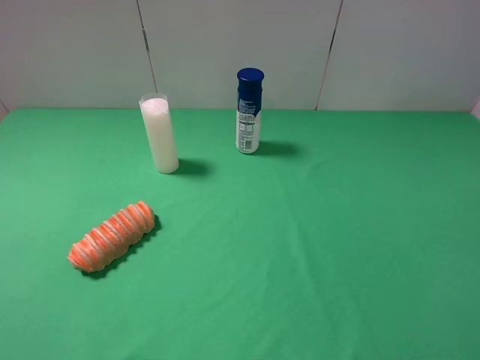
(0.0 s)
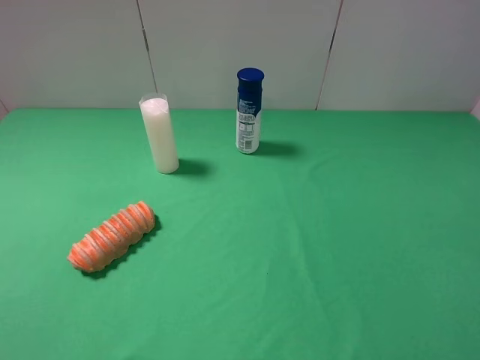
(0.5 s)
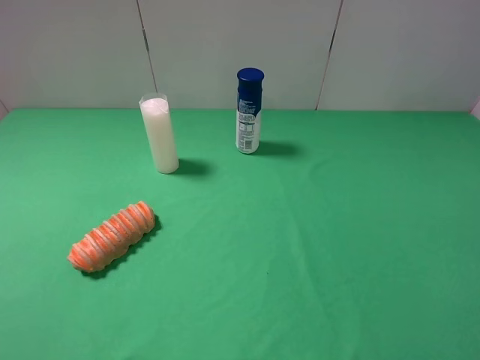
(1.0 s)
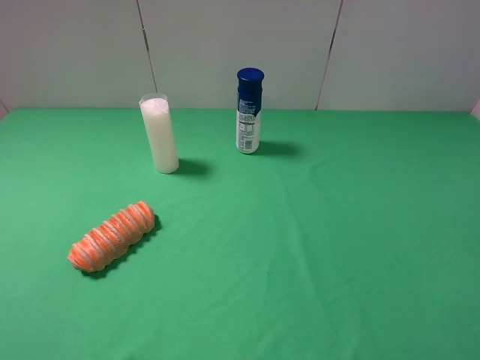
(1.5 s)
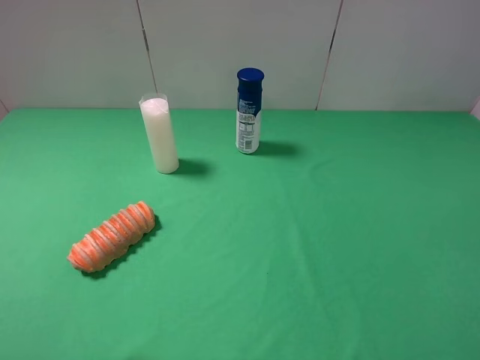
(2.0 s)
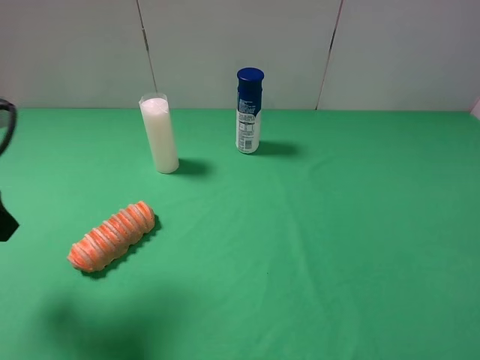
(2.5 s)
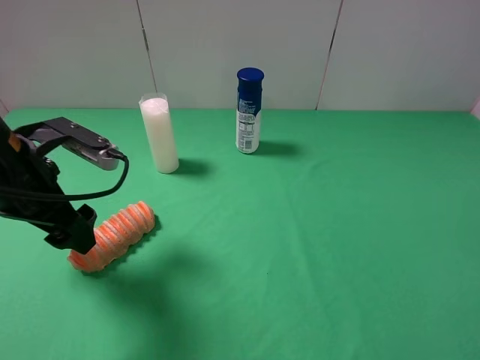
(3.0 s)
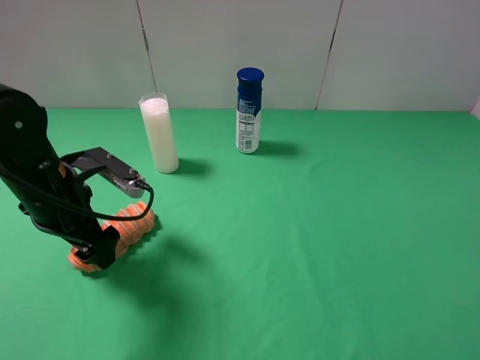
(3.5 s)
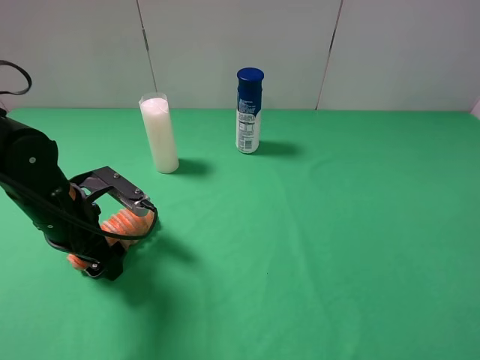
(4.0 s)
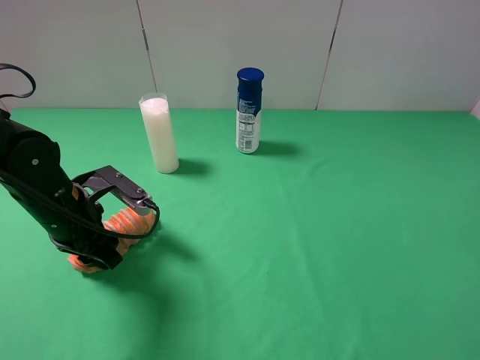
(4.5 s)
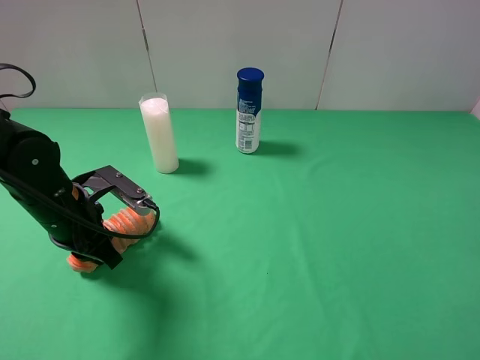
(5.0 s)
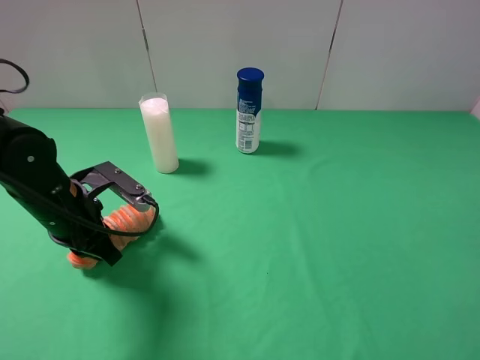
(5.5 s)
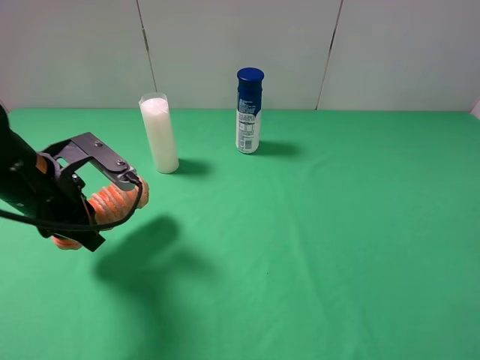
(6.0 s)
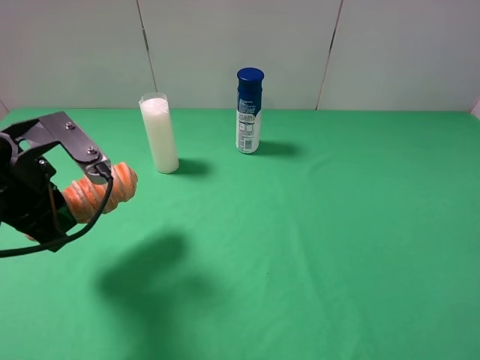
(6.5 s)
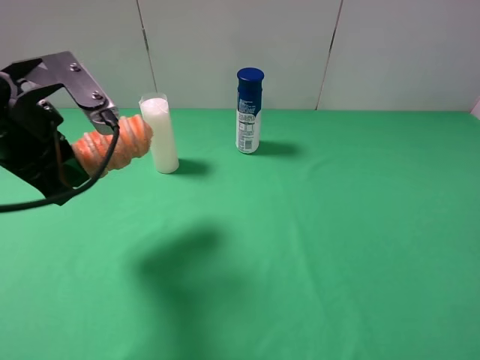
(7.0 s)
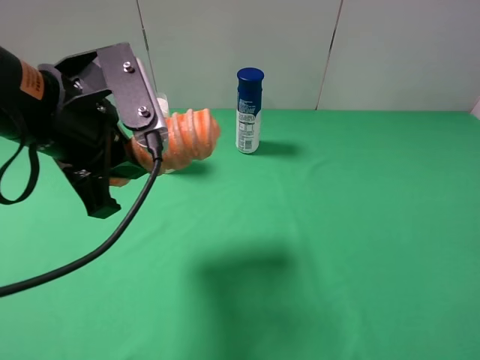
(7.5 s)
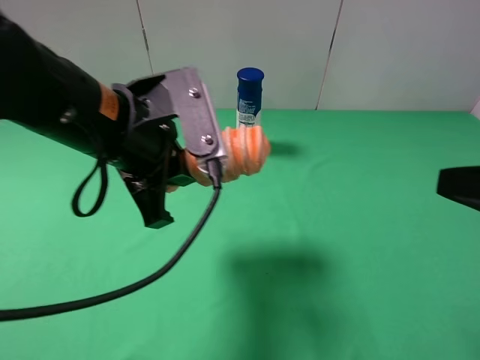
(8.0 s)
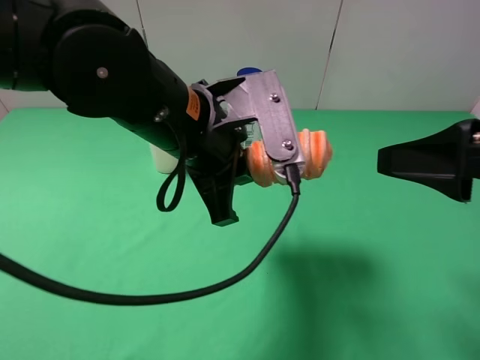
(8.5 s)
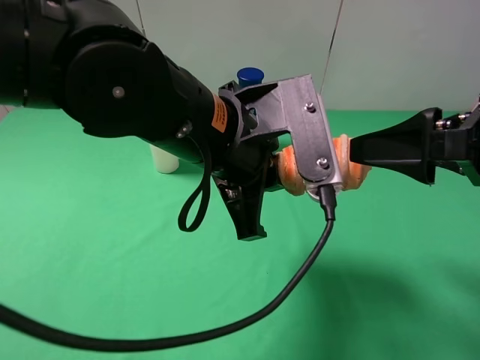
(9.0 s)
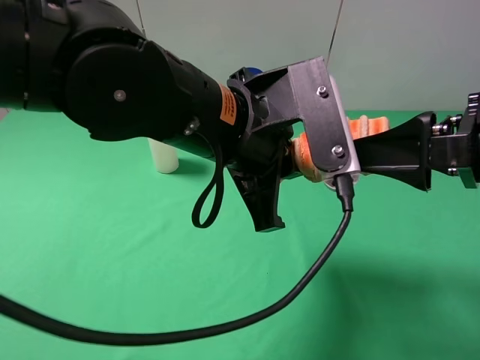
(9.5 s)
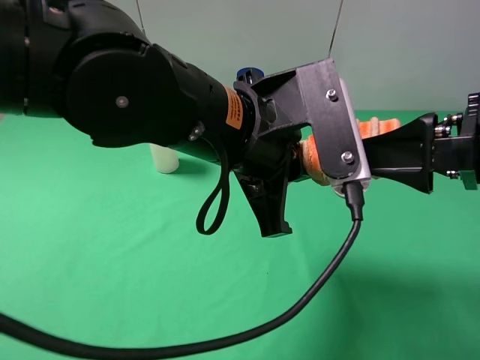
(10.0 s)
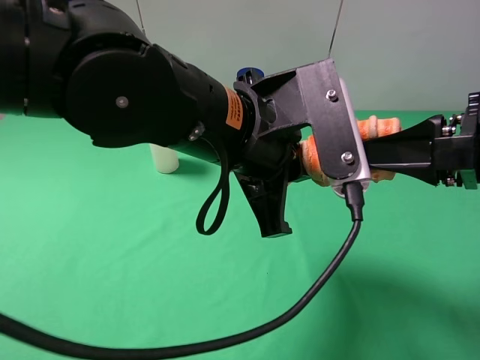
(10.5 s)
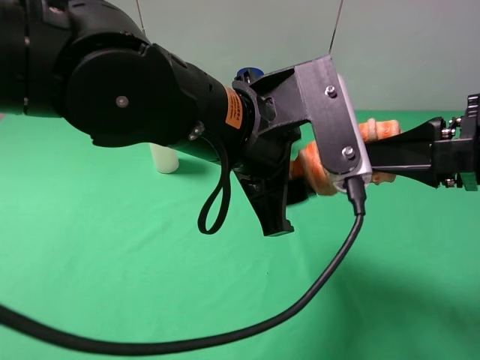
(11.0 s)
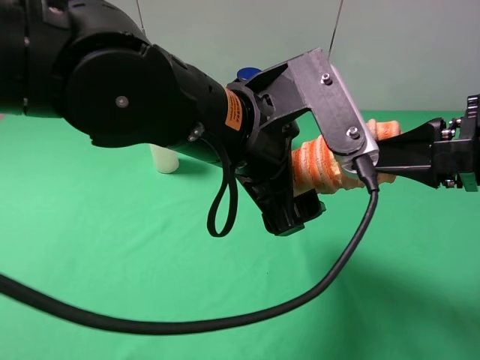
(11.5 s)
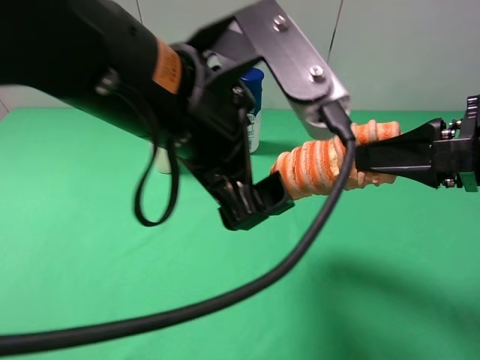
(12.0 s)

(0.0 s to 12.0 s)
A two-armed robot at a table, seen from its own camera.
Task of the whole recording: use the left gripper to pick up the item and transfer it from the left gripper to the right gripper.
Step, 0.0 s - 4.5 s: Use the left gripper to grab the long bread on the left side of the table.
Step, 5.0 s - 11.5 s: Pass the long bread to the right gripper.
2.0 s - 4.0 s: The left gripper shifts roughly 30 cm downward, forward and to the right.
4.0 s - 6.0 s: The left gripper heads upward, covering roughly 5 cm, and closes.
6.0 s - 8.0 s: The left gripper moves to the right and upward, some 15 cm, while the right gripper shifts roughly 10 cm forward.
8.0 s - 10.0 s: The right gripper is displaced forward by approximately 5 cm; the left gripper travels to the right by some 10 cm.
10.0 s - 12.0 s: The left gripper shifts by about 5 cm, and opens up, while the right gripper closes up.

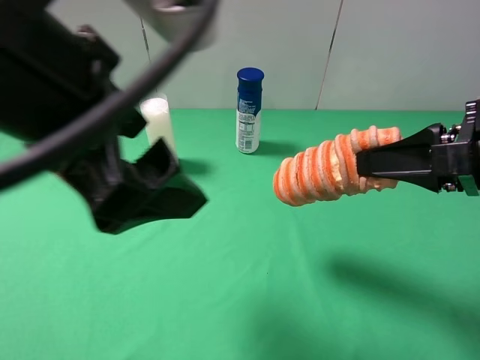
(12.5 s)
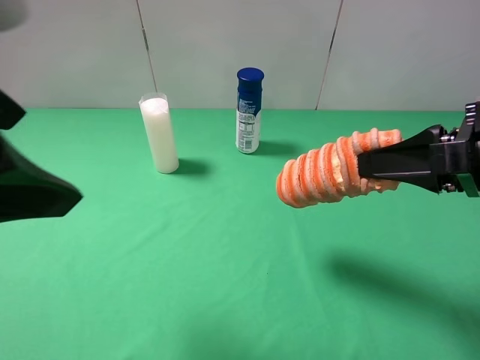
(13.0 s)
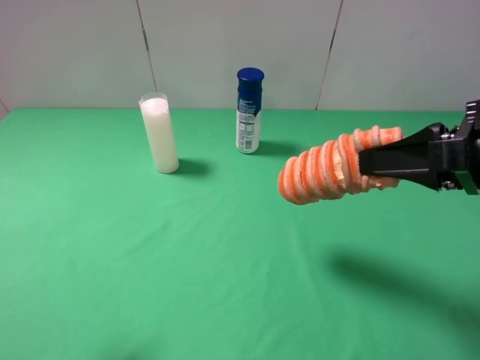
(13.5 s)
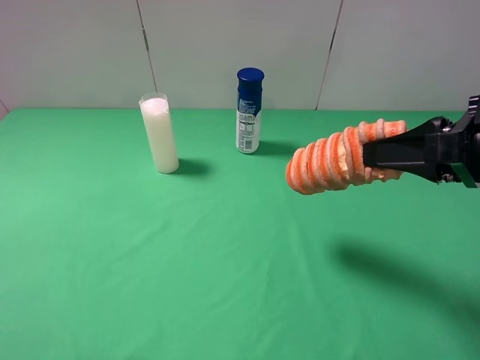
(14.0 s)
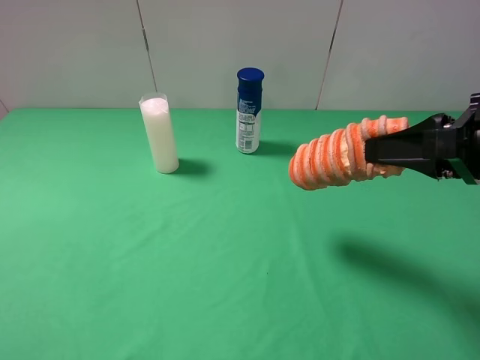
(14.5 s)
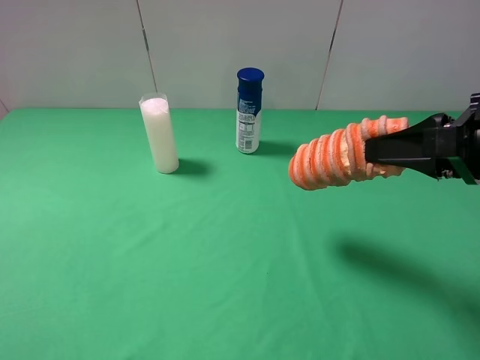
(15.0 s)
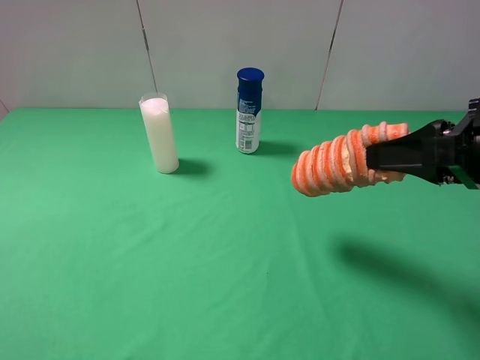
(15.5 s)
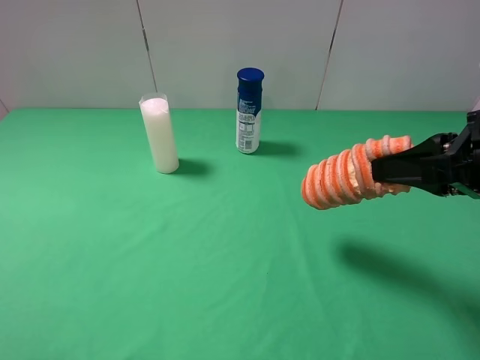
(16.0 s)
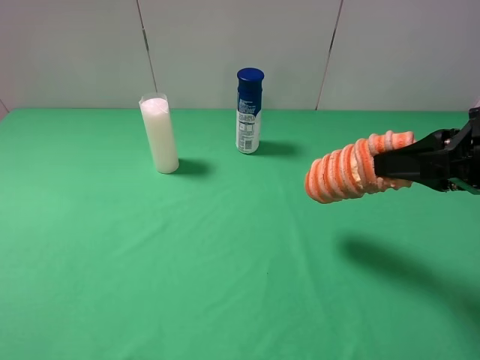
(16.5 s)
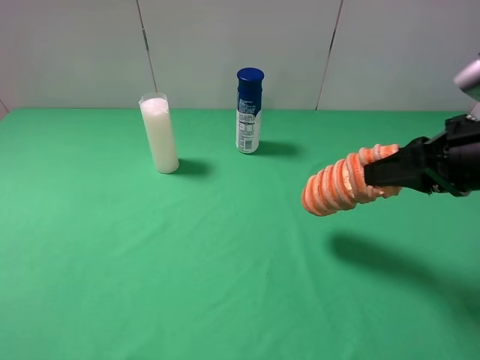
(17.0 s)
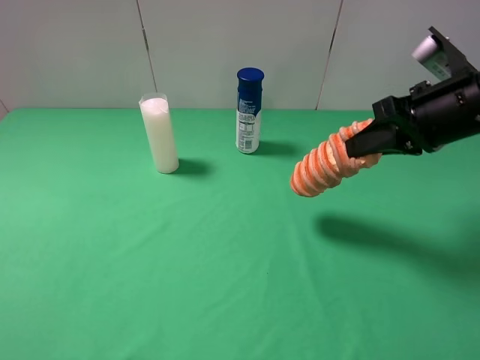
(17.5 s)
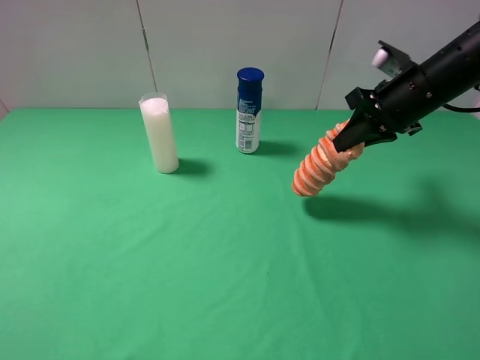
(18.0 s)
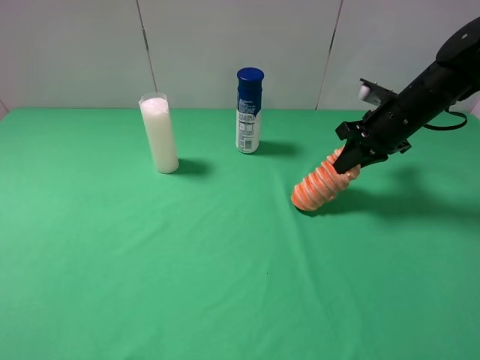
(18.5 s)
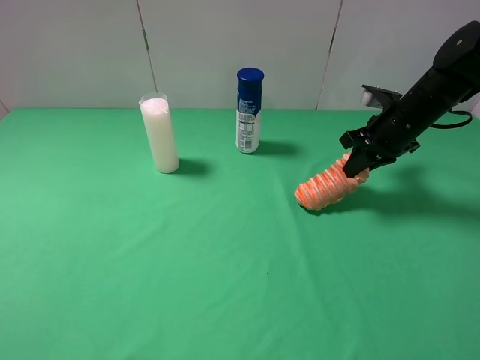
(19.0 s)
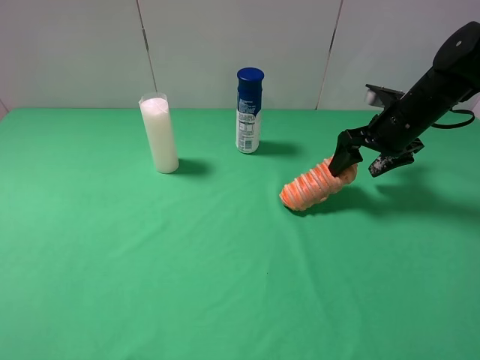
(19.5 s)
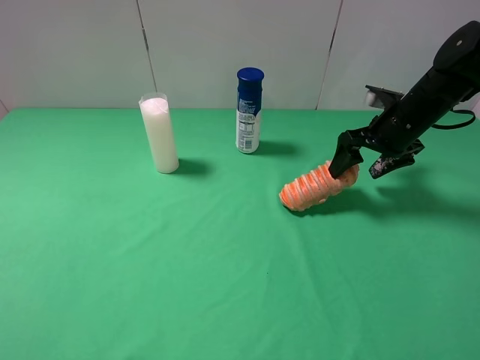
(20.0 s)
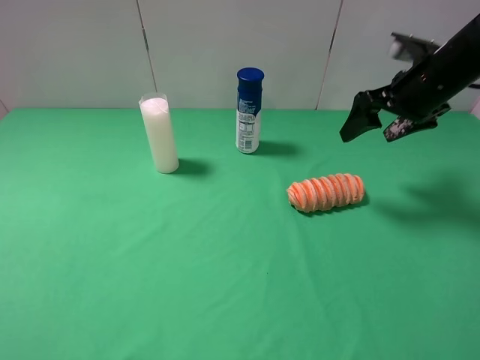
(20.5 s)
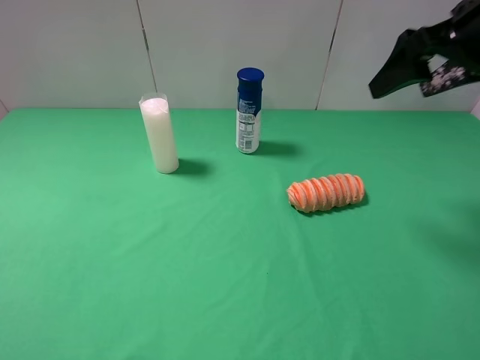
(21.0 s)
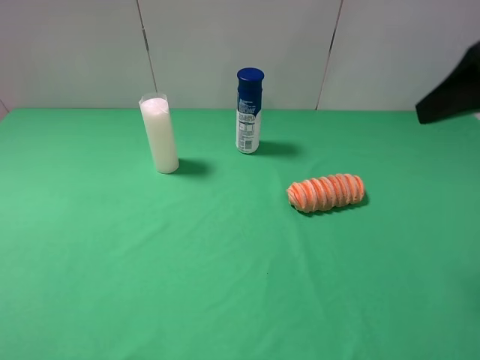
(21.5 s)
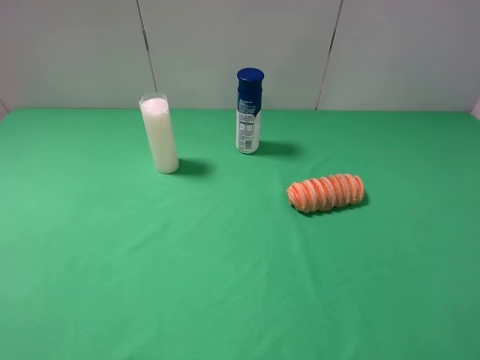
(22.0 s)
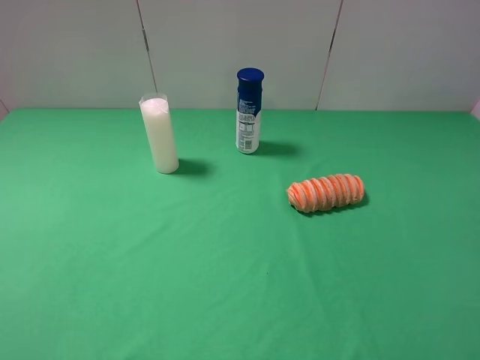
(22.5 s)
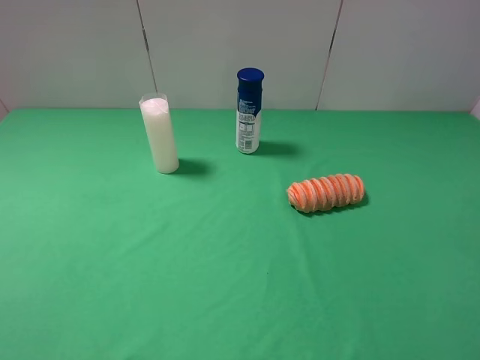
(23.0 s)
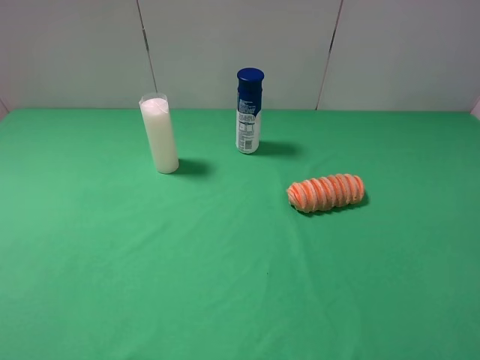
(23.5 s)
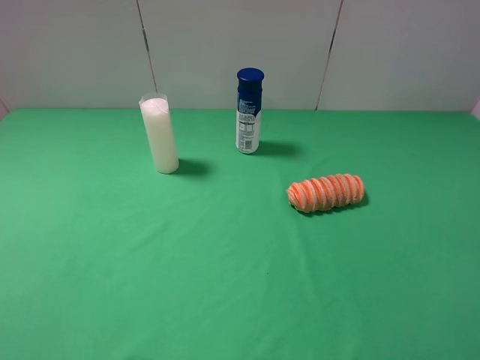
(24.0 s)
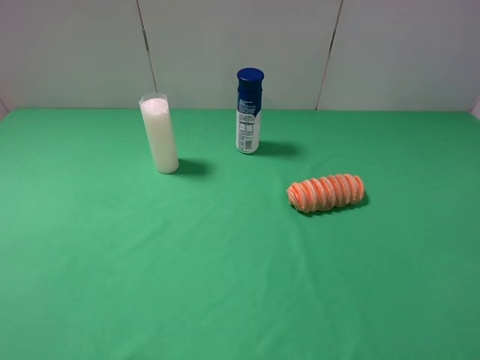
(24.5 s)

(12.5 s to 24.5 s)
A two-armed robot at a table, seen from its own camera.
Task of the whole recording: use the left gripper to pick up the item and transfer it from the left gripper to the right gripper.
Step, 12.5 s - 20.0 s: The right gripper places long bread on the right side of the table.
12.5 s - 14.5 s: The left gripper is displaced to the left, backward and downward by approximately 25 cm.
16.5 s - 18.5 s: The right gripper is displaced forward and downward by roughly 20 cm.
18.5 s - 20.5 s: The right gripper heads upward, covering approximately 5 cm, and opens.
20.5 s - 22.5 s: The right gripper is displaced backward by roughly 35 cm.
22.5 s - 24.5 s: The two grippers keep their place.

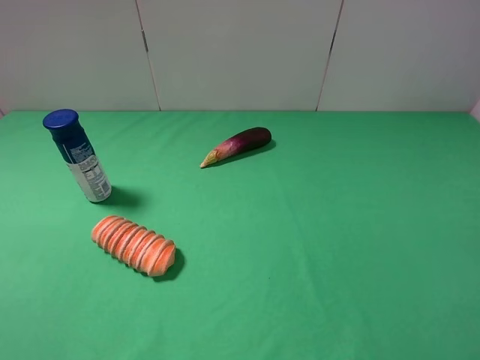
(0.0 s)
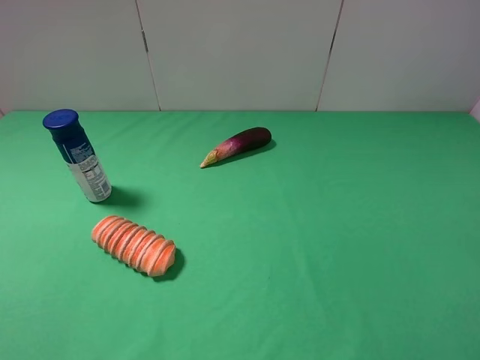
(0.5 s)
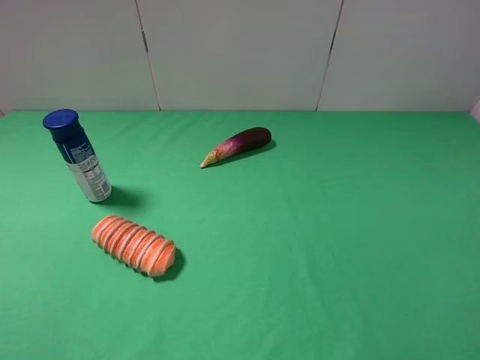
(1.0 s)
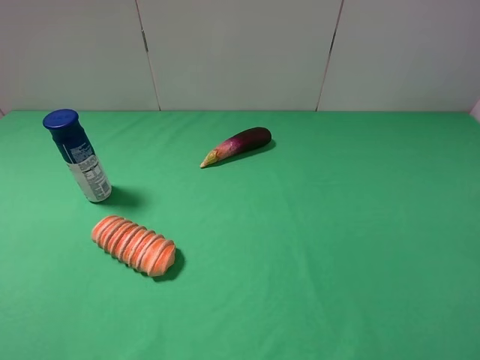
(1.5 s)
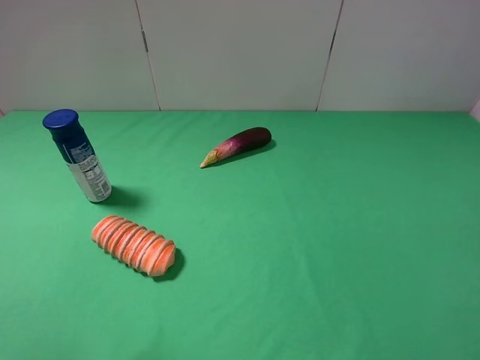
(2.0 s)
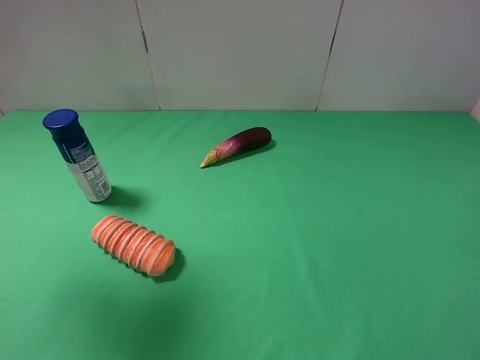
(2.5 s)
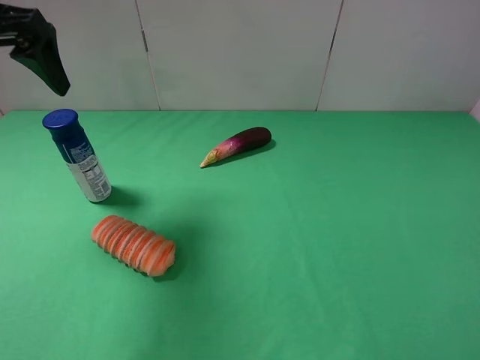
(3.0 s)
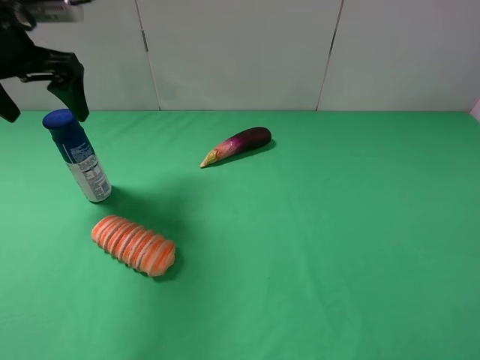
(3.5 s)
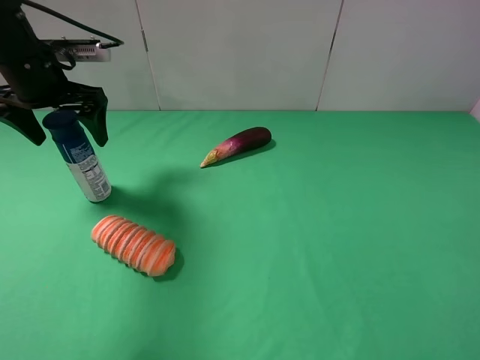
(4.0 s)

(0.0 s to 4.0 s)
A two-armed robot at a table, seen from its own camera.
Task of the whole recording: use the left gripper to pick up the item and transfer it from the left gripper to the right gripper.
2.0 s - 4.0 s: The left gripper travels forward and downward by about 30 cm.
